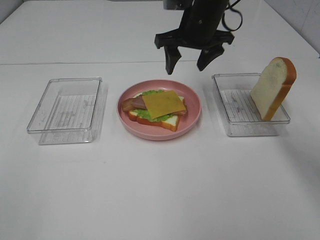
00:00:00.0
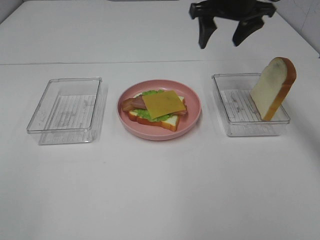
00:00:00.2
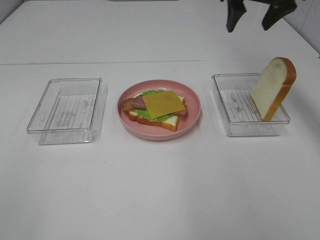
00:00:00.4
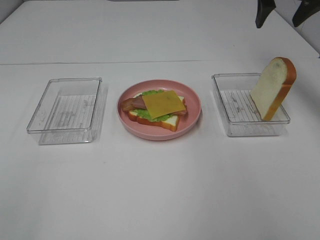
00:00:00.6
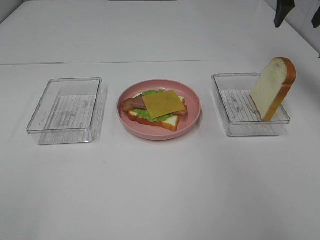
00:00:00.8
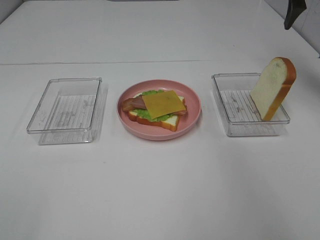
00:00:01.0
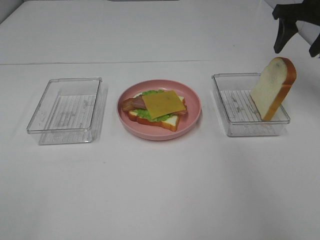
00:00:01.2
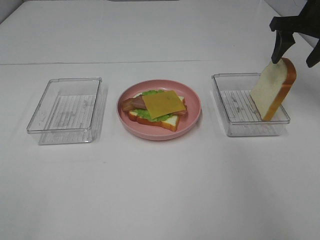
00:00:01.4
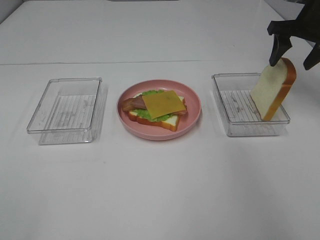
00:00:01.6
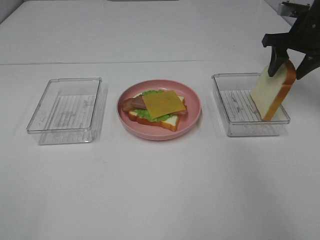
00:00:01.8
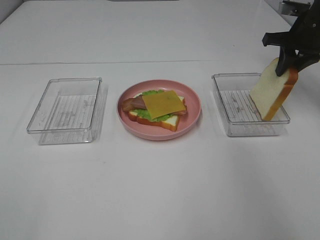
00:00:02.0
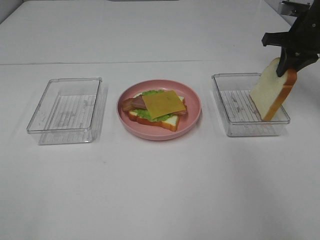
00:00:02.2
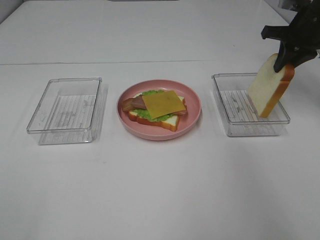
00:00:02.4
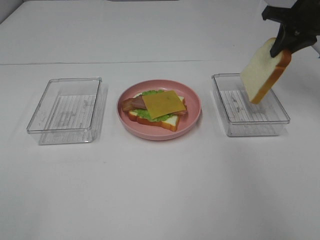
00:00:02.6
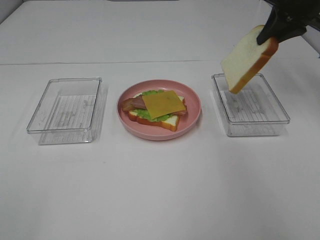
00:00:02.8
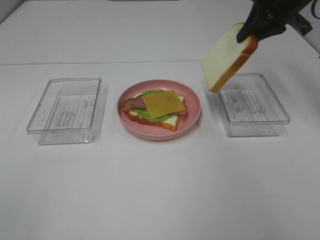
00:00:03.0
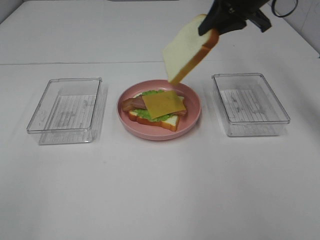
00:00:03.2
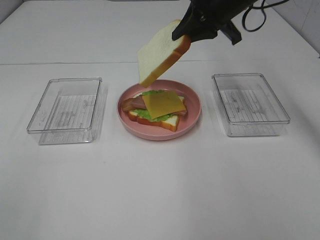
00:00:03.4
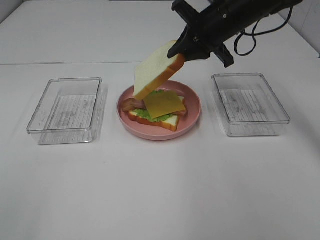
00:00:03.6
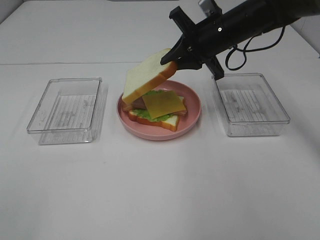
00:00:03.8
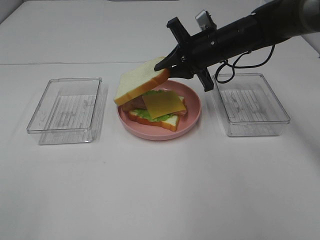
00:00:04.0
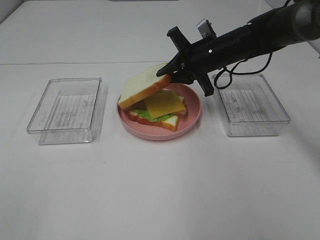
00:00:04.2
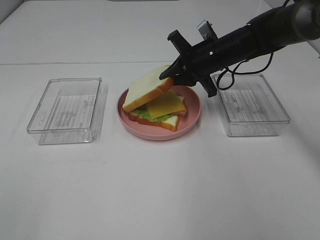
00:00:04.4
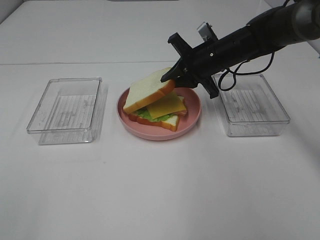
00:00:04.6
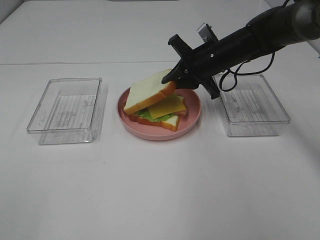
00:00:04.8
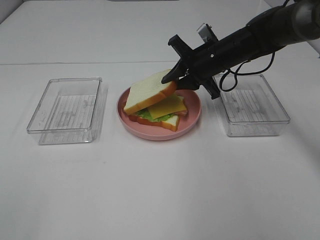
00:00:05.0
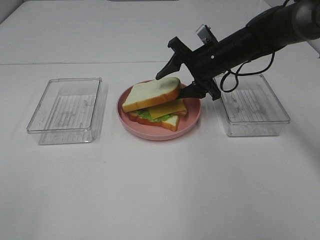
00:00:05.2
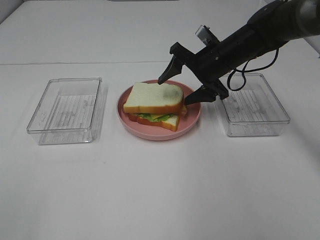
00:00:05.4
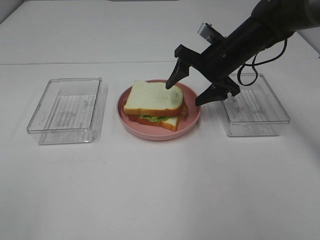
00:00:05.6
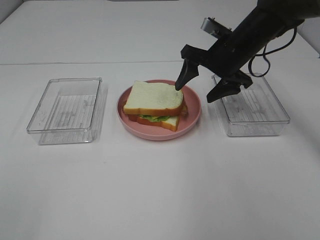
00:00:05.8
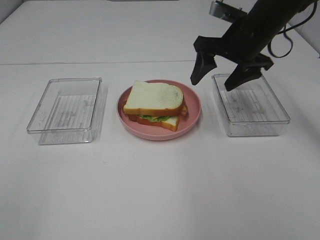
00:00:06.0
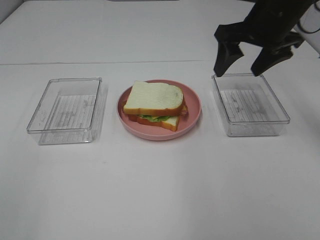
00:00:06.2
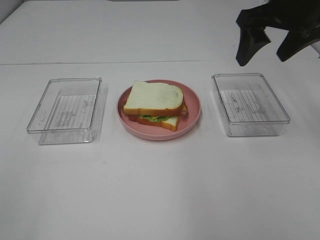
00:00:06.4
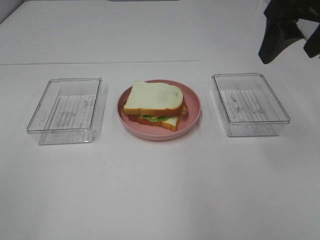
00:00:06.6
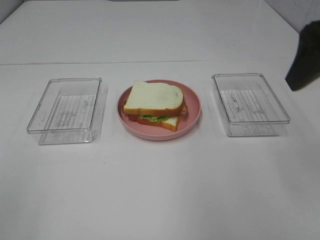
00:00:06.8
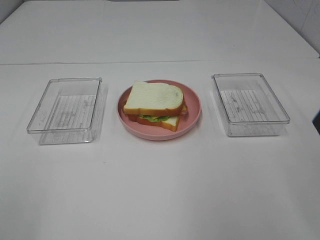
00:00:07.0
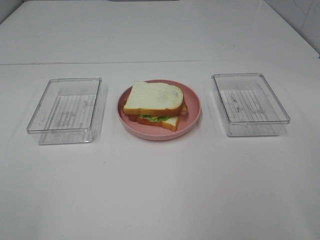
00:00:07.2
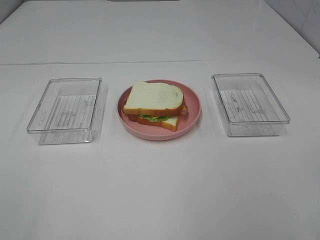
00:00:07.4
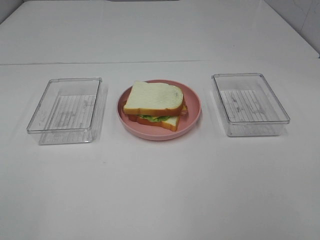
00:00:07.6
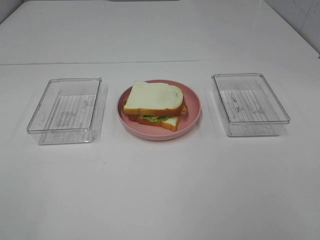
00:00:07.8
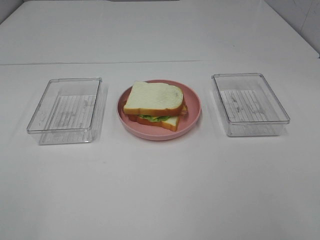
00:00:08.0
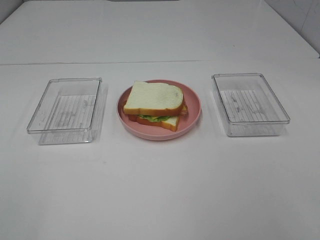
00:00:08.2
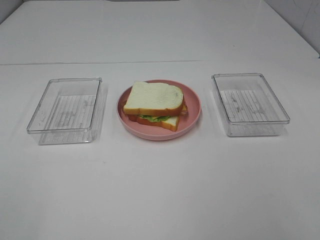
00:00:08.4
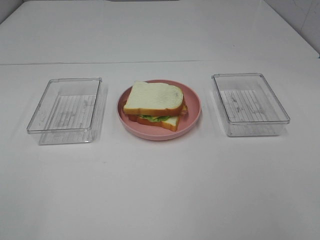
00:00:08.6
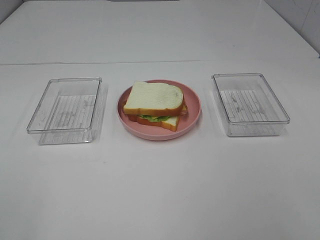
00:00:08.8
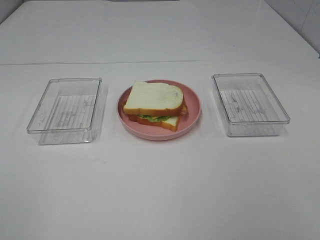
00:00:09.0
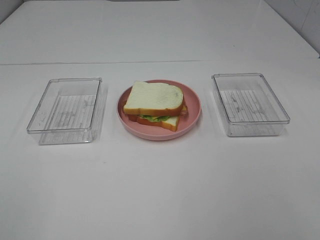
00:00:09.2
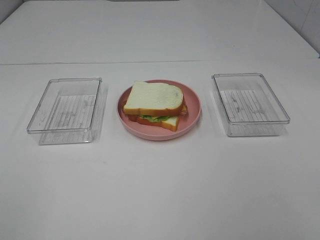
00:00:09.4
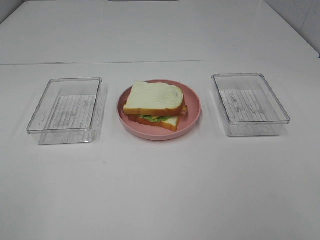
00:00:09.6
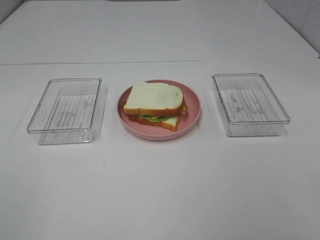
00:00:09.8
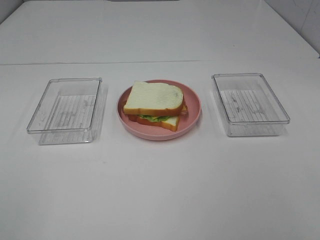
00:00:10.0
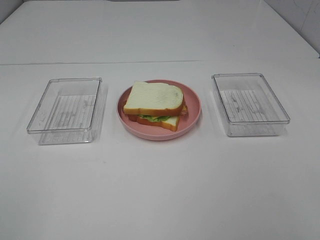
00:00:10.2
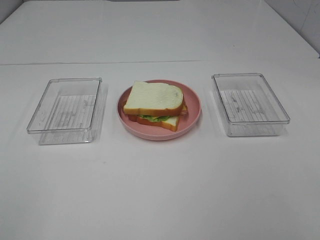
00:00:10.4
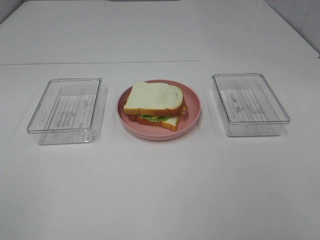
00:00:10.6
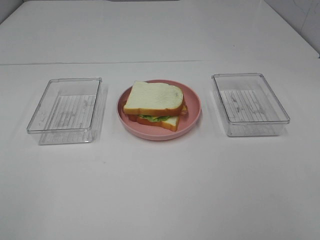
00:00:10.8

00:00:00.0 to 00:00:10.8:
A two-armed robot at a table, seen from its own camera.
Task of the whole recording: Make sandwiches.
Step, 00:00:00.0 to 00:00:02.2: Right hand:grab the bread slice.
Step, 00:00:02.4 to 00:00:05.6: Right hand:place the bread slice on the cheese slice.
00:00:00.0 to 00:00:01.6: The right gripper goes some 20 cm to the right.
00:00:01.6 to 00:00:03.0: The right gripper heads to the left, covering about 10 cm, and closes.
00:00:03.0 to 00:00:04.6: The right gripper heads downward and to the left, covering some 15 cm.
00:00:04.6 to 00:00:06.2: The right gripper heads upward, backward and to the right, covering roughly 15 cm, and opens.
00:00:06.2 to 00:00:07.8: The right gripper heads backward, covering roughly 35 cm.

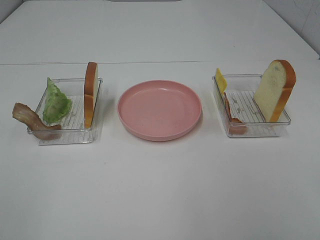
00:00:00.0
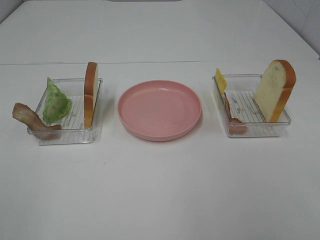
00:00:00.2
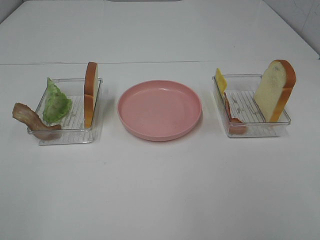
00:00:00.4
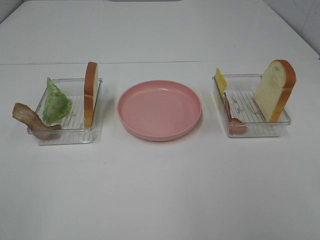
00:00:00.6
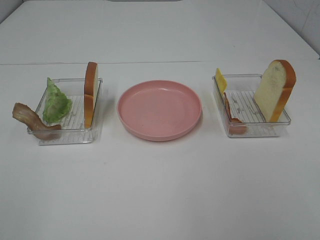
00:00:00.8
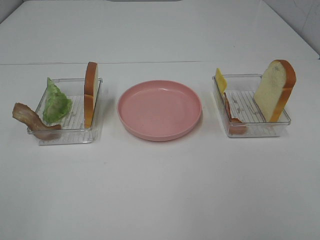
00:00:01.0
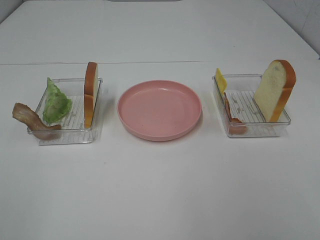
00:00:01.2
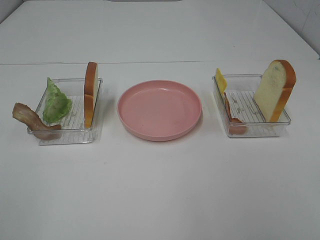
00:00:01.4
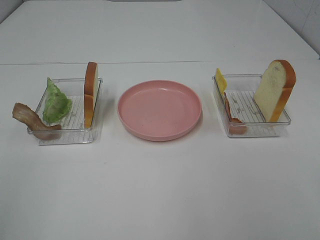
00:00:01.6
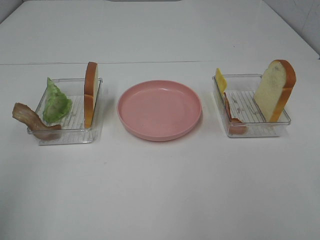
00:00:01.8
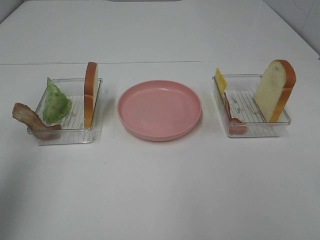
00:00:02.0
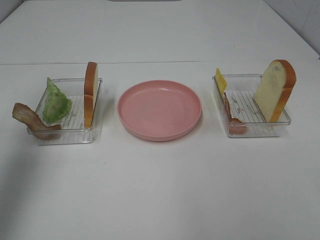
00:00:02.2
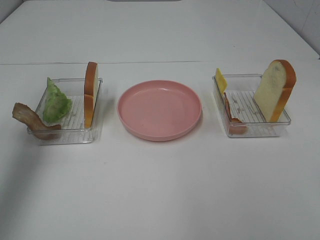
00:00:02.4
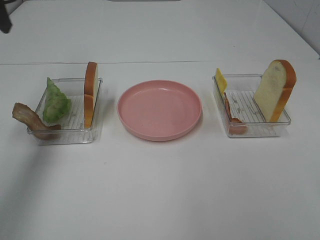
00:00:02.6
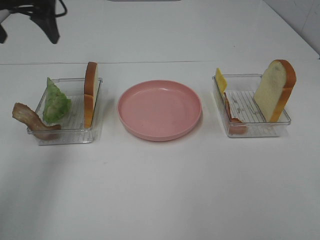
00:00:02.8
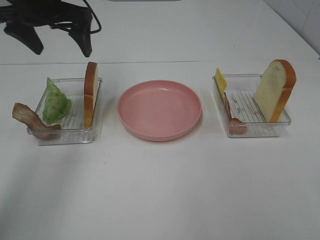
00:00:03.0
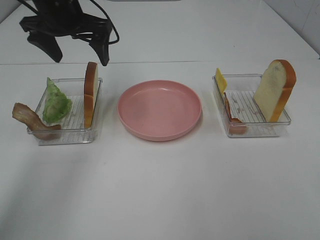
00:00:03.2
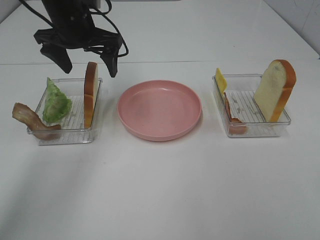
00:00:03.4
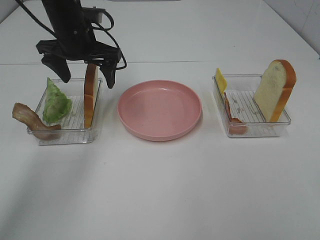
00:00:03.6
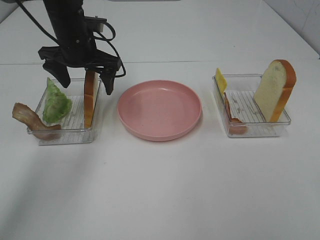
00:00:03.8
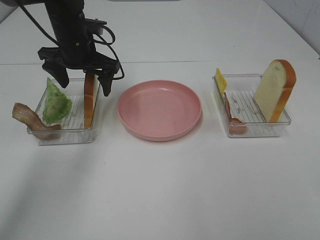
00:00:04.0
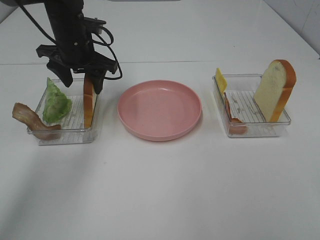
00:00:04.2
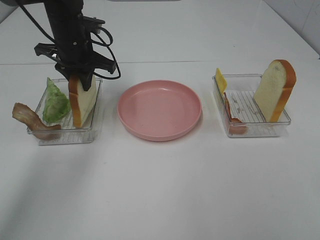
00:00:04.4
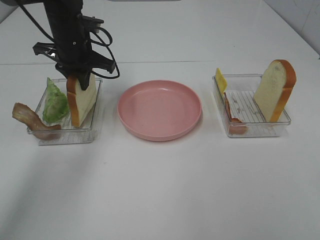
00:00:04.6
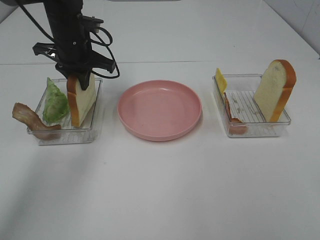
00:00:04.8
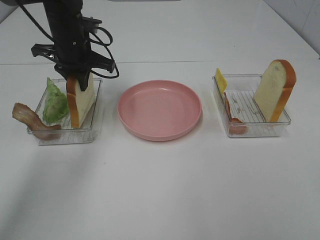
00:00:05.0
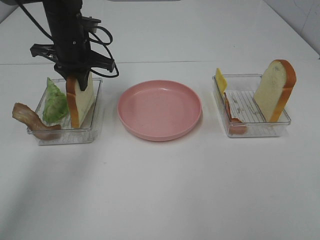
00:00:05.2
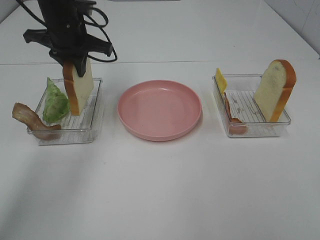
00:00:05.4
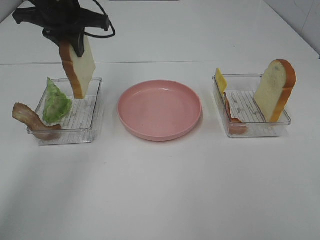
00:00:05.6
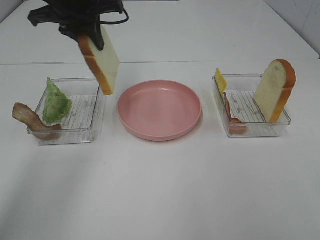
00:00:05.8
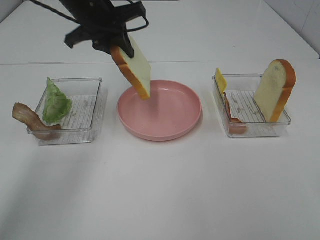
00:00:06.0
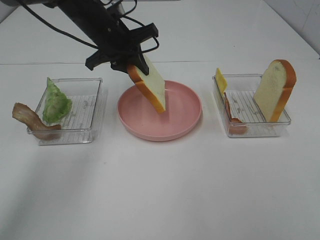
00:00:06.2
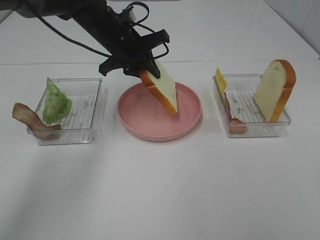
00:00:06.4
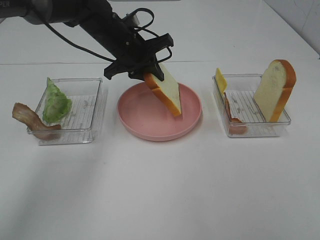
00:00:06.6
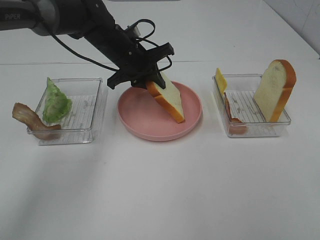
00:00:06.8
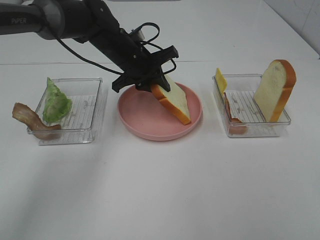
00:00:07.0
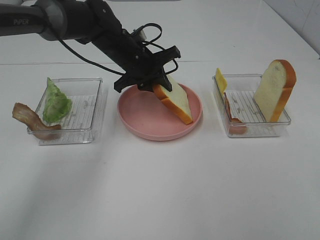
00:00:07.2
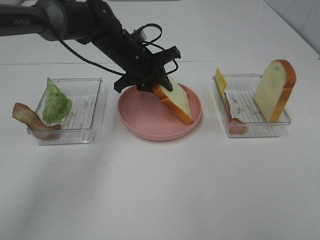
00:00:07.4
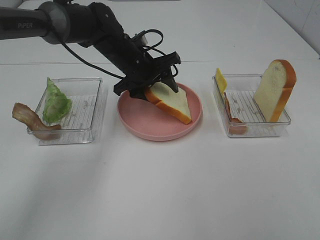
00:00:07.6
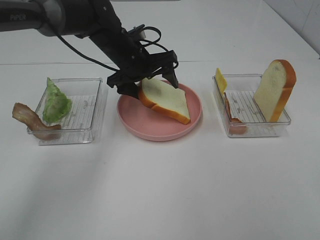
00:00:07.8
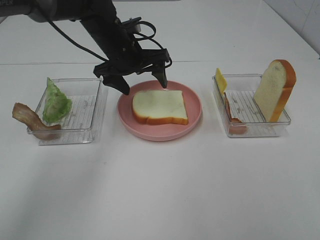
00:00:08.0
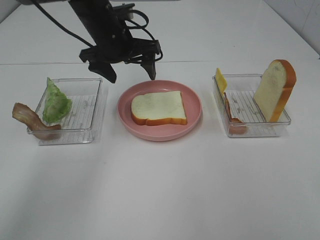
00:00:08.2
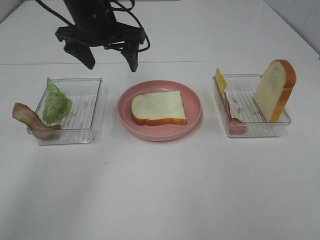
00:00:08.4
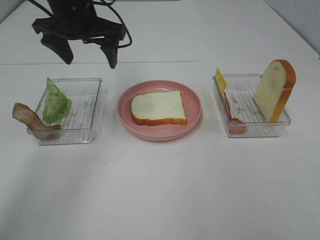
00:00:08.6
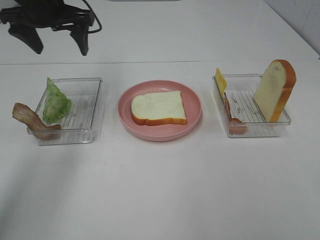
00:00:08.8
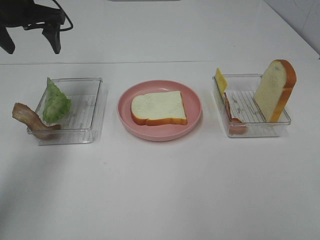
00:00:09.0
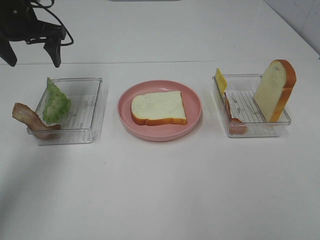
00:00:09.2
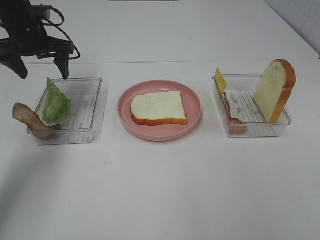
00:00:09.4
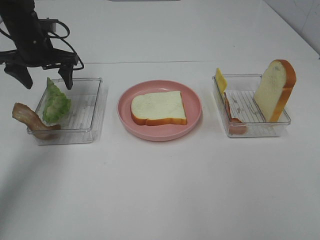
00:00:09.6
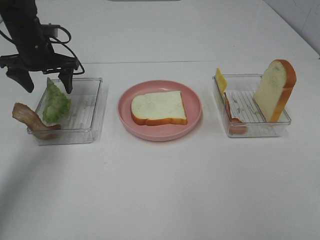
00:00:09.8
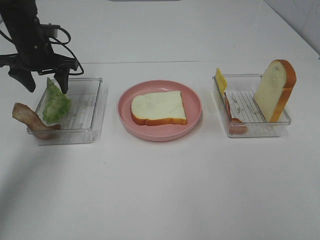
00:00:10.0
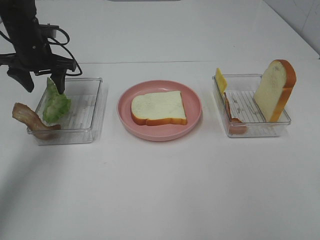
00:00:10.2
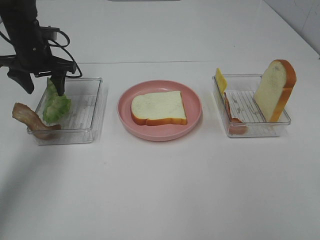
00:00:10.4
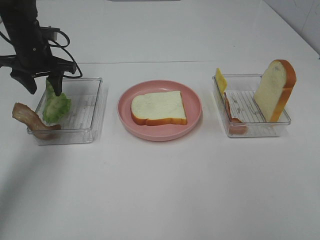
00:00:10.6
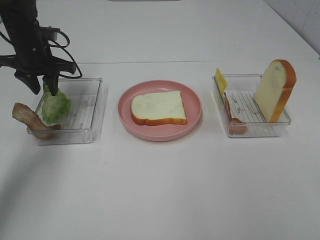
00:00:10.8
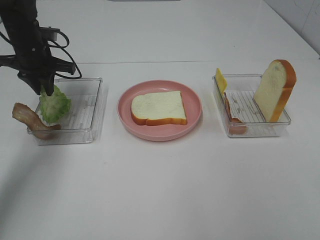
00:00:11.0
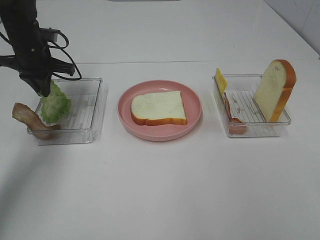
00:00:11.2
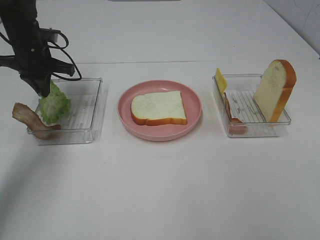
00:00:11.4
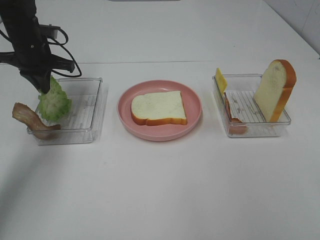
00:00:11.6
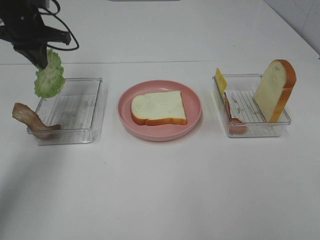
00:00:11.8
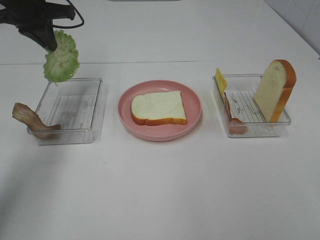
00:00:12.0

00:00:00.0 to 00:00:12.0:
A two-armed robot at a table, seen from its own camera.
Task of the whole recording: Make sandwiches.
Step, 00:00:00.0 to 00:00:04.8: Left hand:grab the bread slice.
Step, 00:00:05.0 to 00:00:08.2: Left hand:place the bread slice on the plate.
Step, 00:00:08.4 to 00:00:11.6: Left hand:grab the lettuce slice.
00:00:01.6 to 00:00:03.0: The left gripper goes approximately 40 cm forward.
00:00:03.0 to 00:00:04.4: The left gripper moves downward, about 10 cm, and closes up.
00:00:06.0 to 00:00:07.6: The left gripper heads downward and to the right, covering approximately 10 cm, and opens up.
00:00:07.6 to 00:00:09.0: The left gripper moves to the left and upward, approximately 25 cm.
00:00:09.0 to 00:00:10.4: The left gripper heads downward, covering some 10 cm.
00:00:10.4 to 00:00:12.0: The left gripper travels upward by some 10 cm, and closes up.
